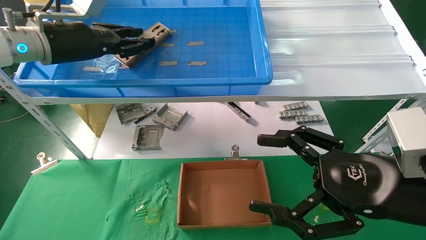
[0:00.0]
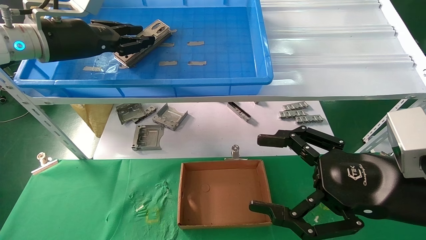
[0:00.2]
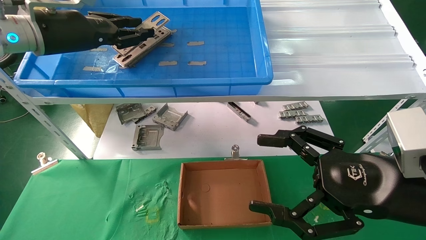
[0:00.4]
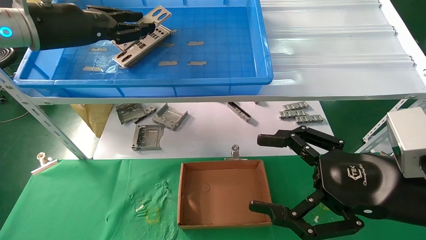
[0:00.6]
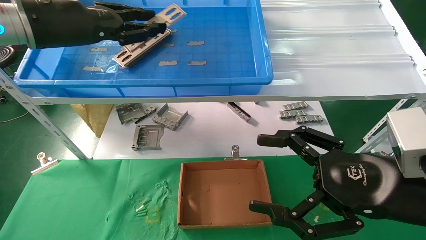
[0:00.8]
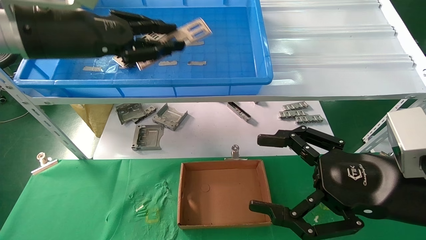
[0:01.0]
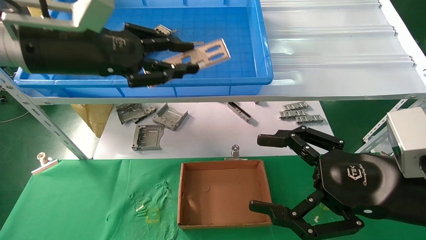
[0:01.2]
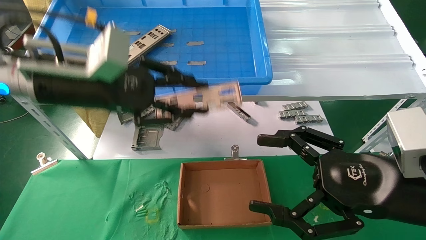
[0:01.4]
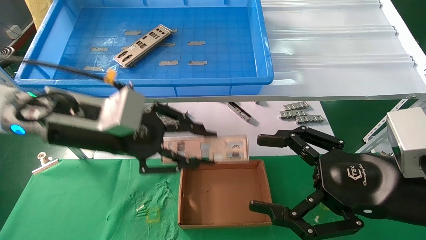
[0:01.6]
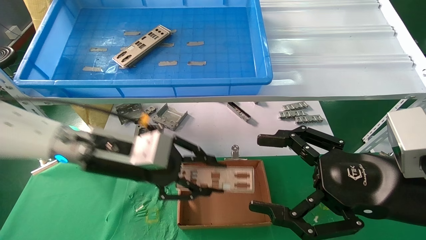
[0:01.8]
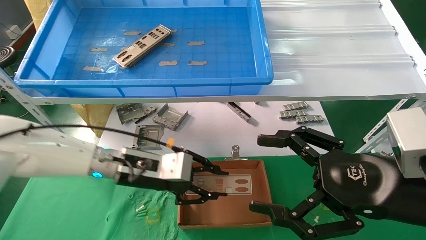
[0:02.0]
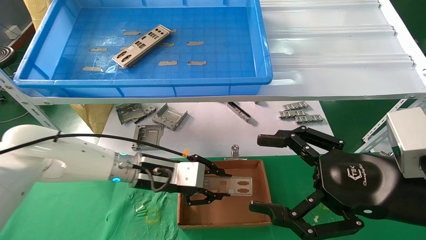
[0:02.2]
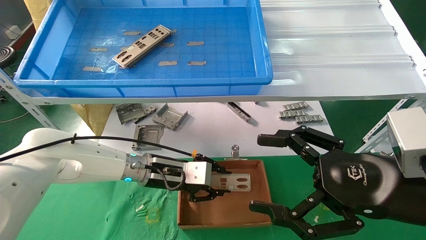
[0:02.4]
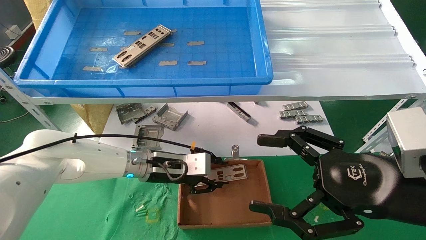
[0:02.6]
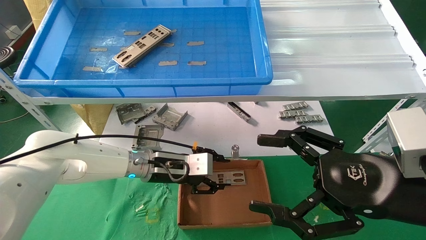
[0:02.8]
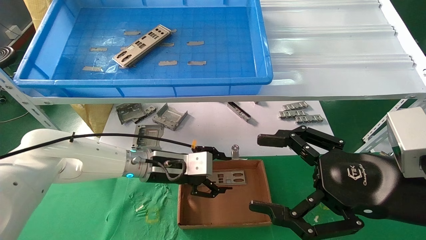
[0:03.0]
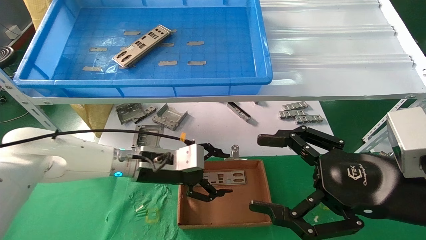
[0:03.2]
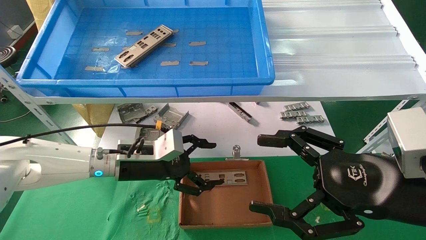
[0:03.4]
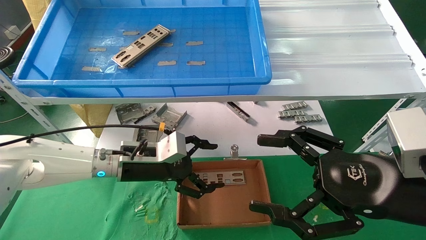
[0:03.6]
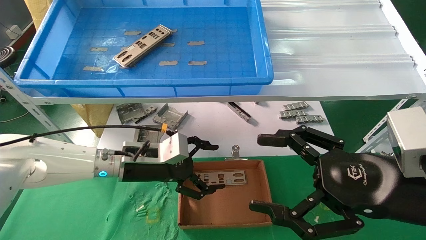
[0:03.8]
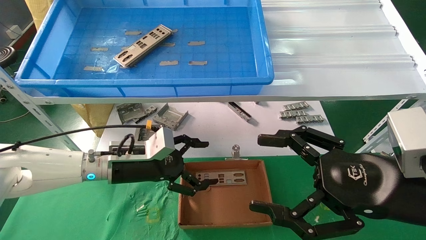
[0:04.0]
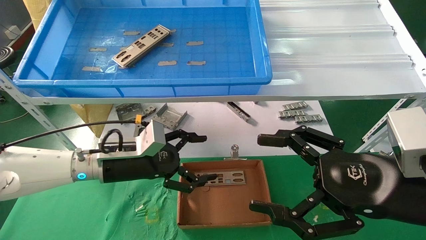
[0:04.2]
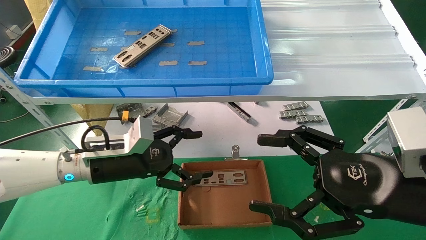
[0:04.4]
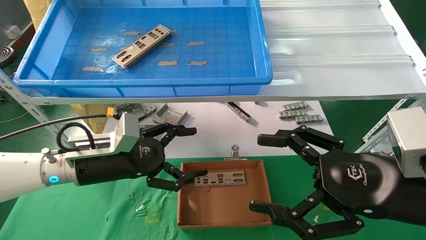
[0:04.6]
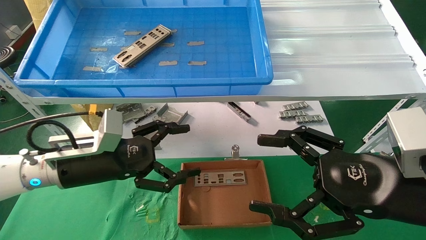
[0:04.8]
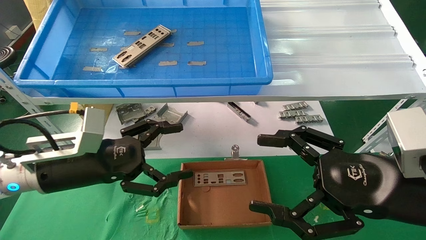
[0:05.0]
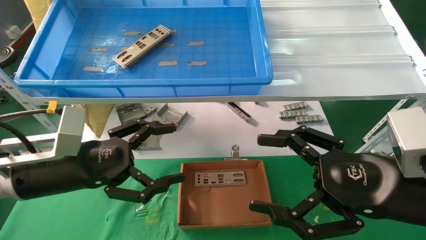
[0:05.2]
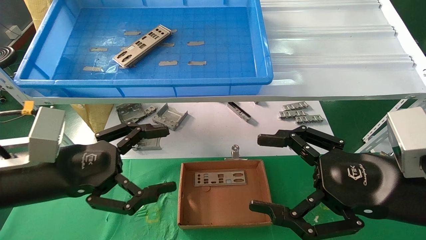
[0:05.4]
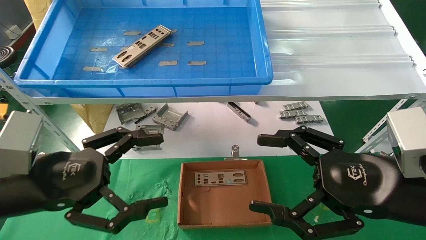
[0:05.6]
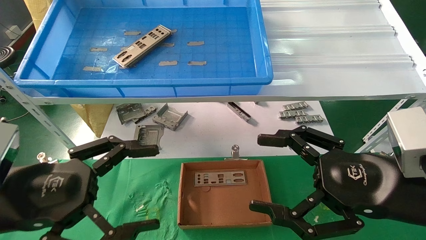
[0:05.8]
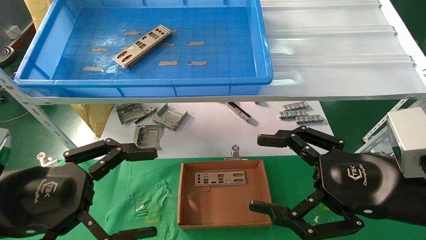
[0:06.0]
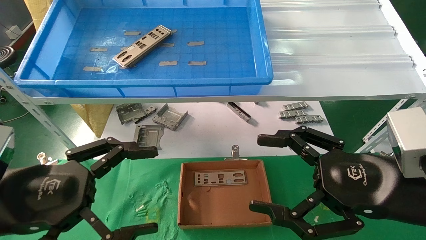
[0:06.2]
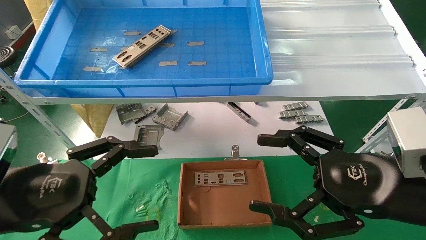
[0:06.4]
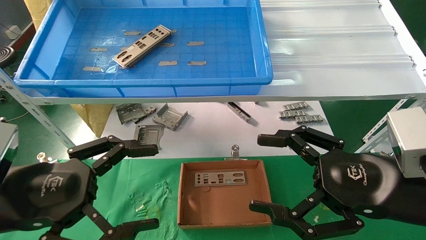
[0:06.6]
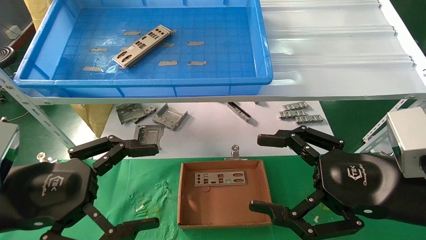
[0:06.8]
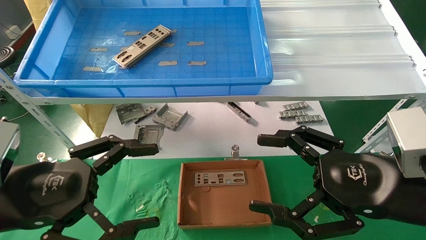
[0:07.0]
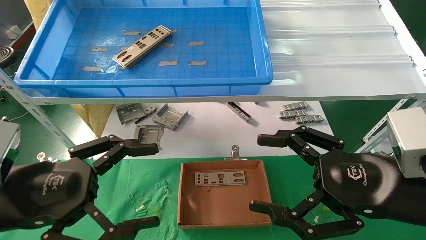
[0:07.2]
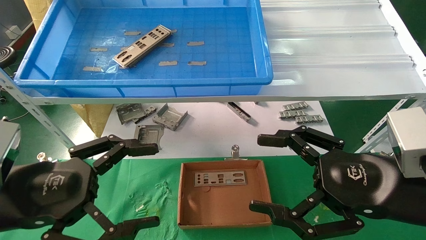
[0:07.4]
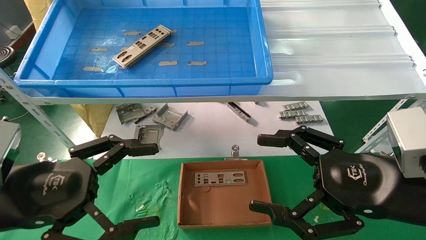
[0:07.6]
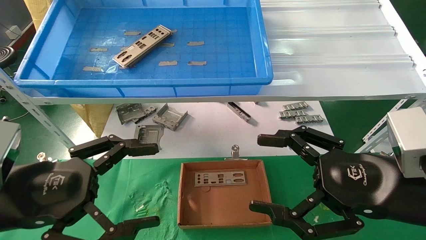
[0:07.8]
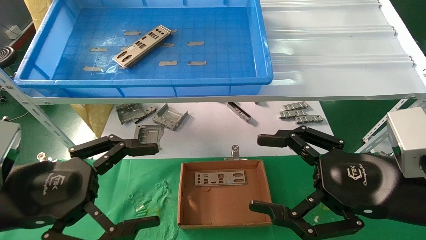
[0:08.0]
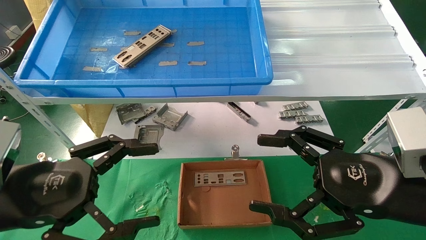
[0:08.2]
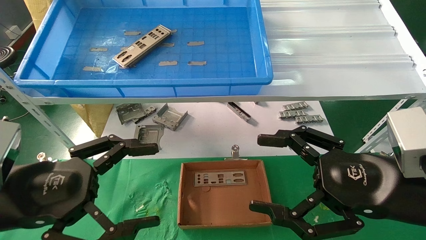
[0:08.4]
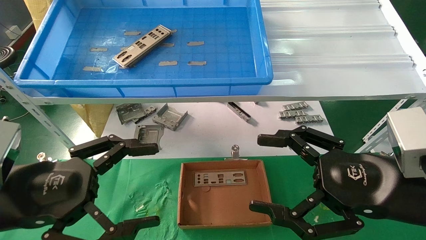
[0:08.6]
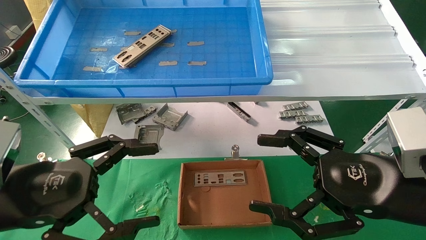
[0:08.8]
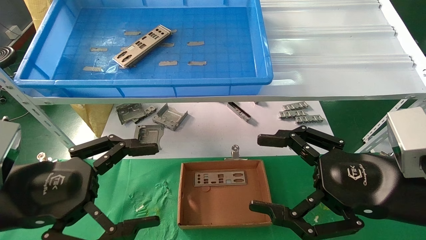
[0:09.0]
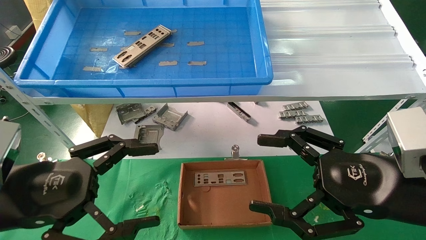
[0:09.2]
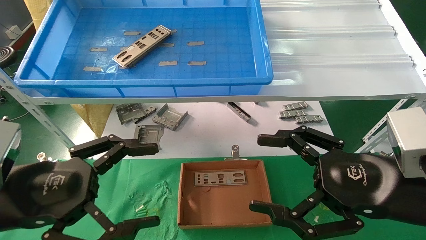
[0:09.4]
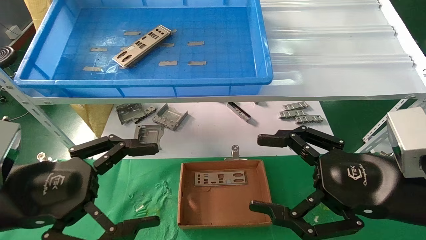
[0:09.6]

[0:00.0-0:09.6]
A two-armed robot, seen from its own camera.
Task of the whole recording: pick up the parts on the tray and put them in the cardboard box.
Step, 0:00.4 to 0:02.8: Place the IO bracket into the ingredient slot.
0:00.0 to 0:01.6: The left gripper is displaced downward, backward and to the right by some 15 cm.
0:01.6 to 0:03.2: The left gripper heads downward and forward, covering about 15 cm, and opens.
0:03.2 to 0:04.8: The left gripper moves to the left and backward, roughly 10 cm, and opens up.
0:04.8 to 0:06.4: The left gripper moves backward, about 15 cm.
0:06.4 to 0:09.6: The two grippers keep their place.
